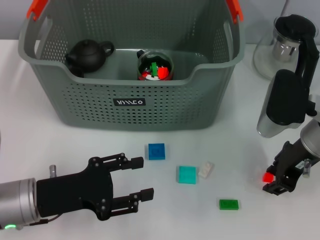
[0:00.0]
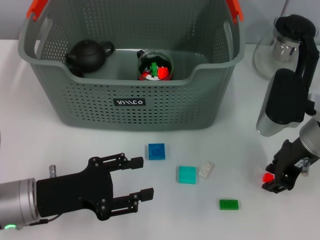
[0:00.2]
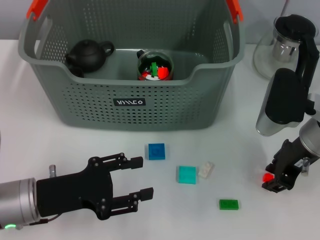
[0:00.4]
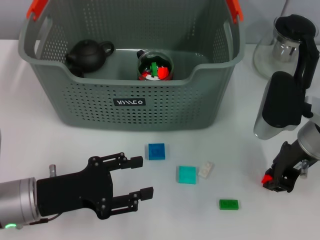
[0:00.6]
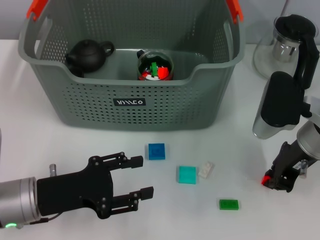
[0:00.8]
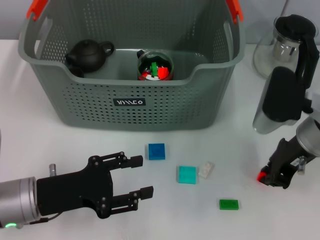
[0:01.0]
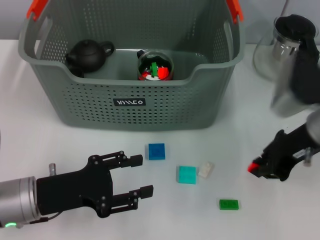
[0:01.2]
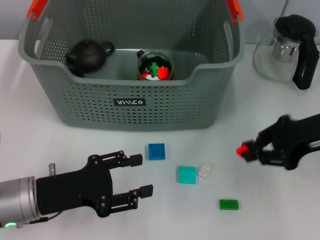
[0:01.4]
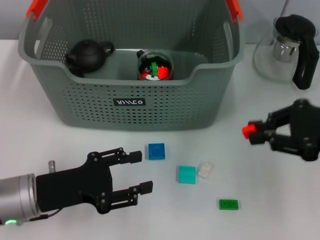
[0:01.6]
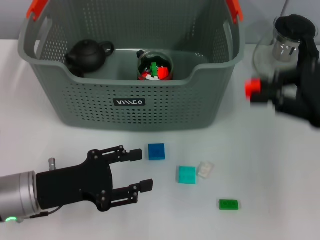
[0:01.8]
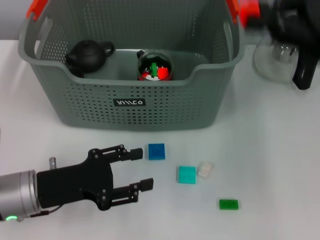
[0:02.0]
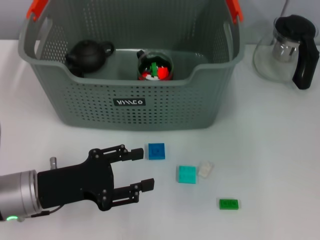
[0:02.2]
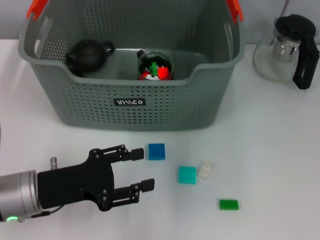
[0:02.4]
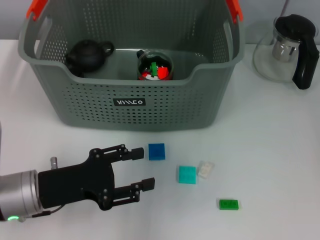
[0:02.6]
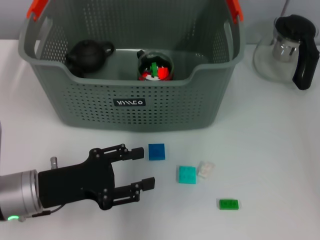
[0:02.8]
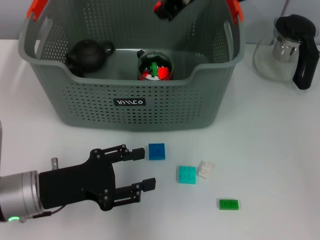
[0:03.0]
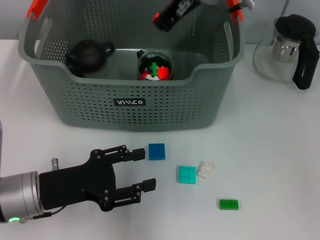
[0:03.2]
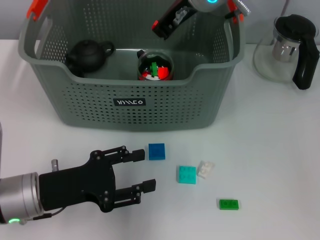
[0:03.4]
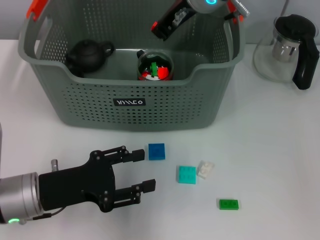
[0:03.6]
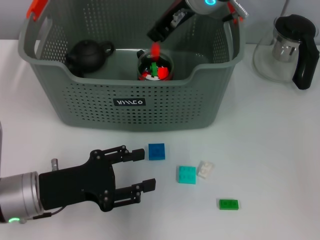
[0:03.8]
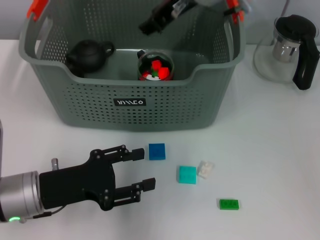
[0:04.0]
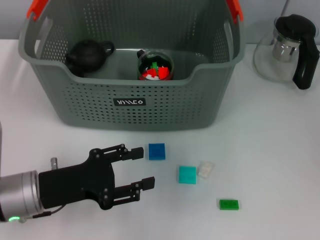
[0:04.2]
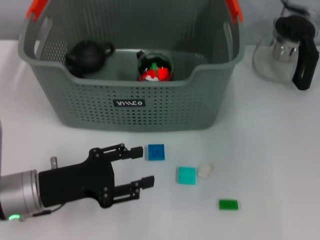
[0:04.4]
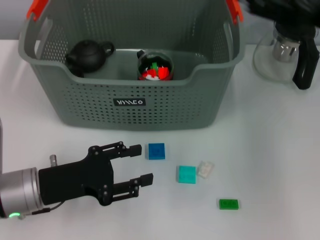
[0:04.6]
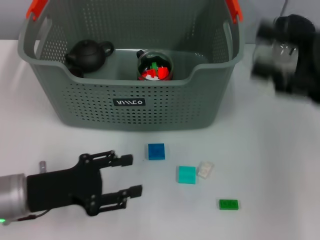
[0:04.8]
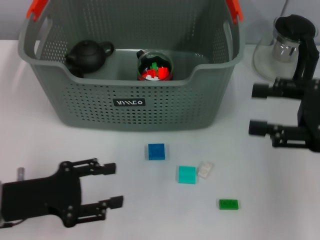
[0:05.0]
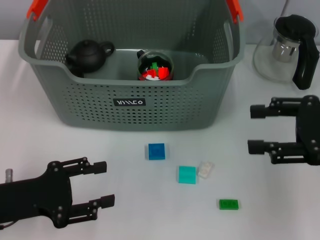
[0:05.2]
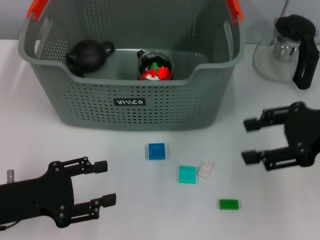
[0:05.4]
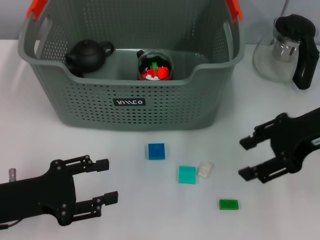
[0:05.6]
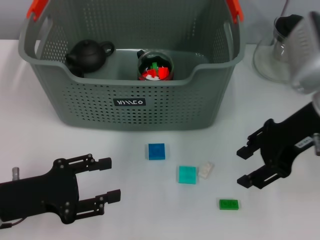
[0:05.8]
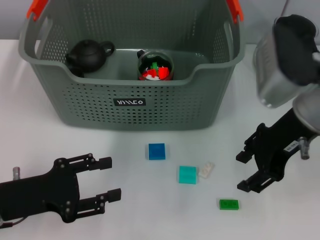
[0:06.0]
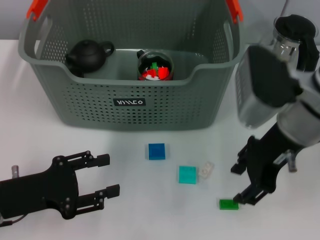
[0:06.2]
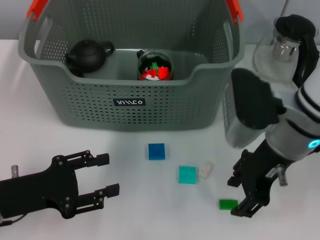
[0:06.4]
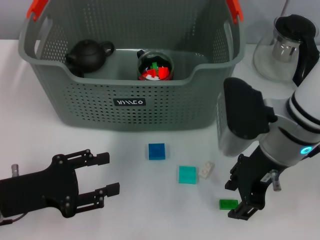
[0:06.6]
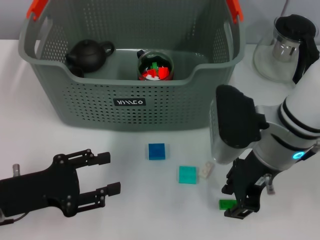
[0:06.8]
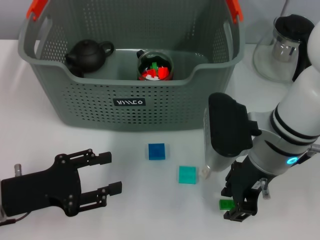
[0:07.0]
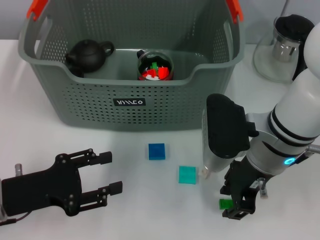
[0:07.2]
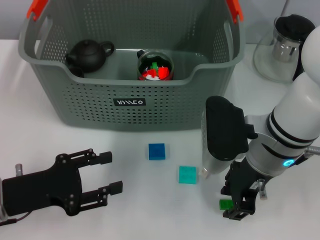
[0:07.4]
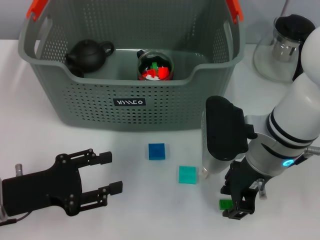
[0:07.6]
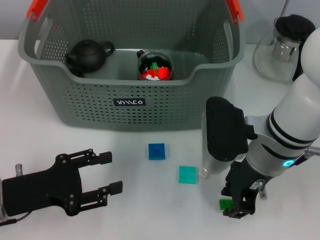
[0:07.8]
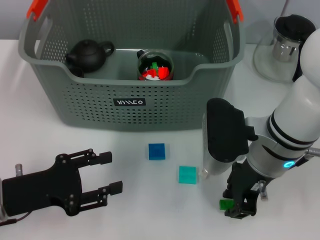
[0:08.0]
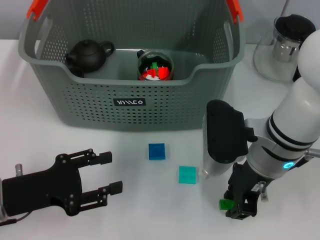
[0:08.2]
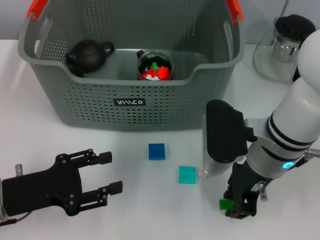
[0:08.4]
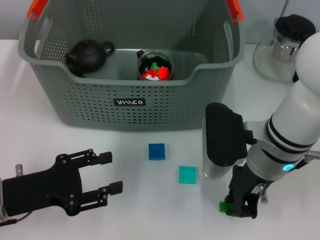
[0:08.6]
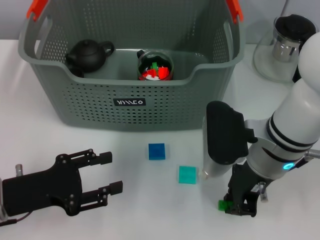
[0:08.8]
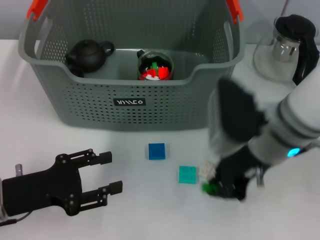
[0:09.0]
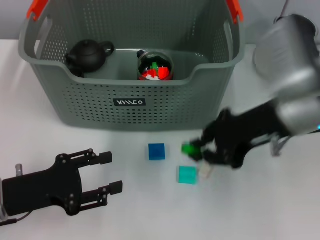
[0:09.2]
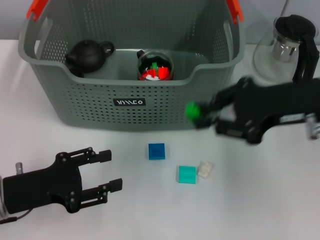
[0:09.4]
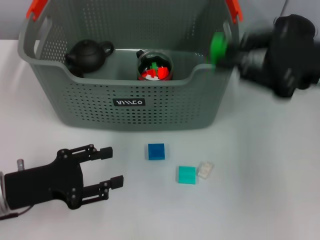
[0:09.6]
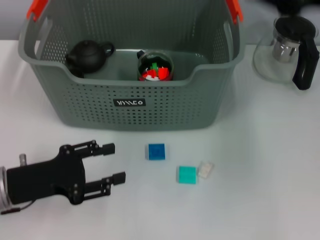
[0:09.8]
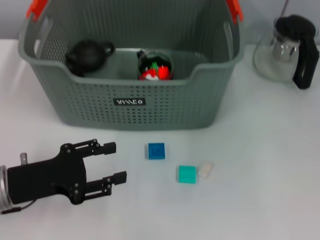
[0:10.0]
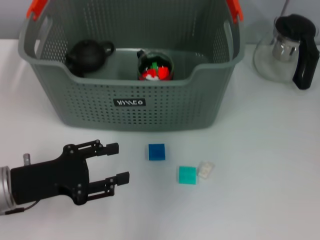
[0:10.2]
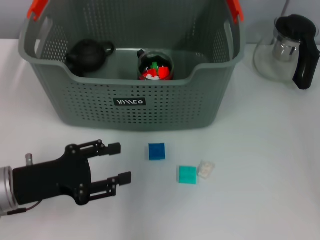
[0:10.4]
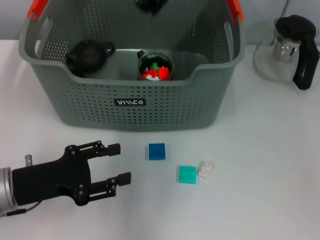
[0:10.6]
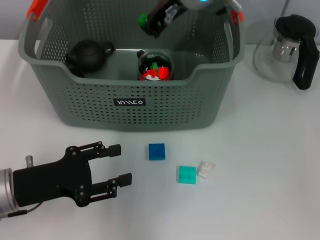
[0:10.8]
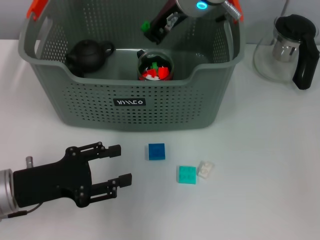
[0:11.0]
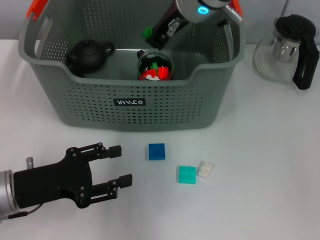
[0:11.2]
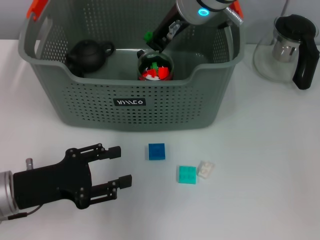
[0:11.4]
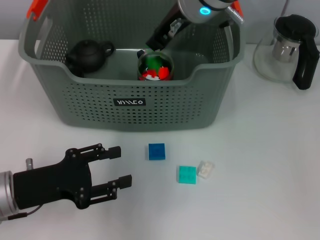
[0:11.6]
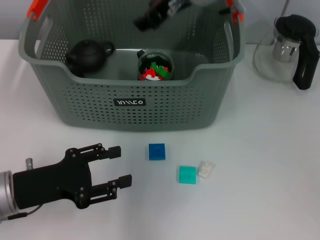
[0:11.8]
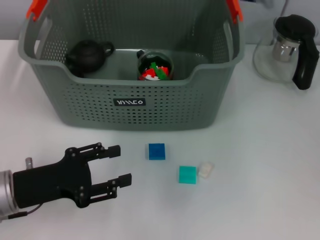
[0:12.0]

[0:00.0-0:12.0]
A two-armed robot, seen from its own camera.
Task of the whole recording: pick up the teacup on the table and place it into the storage bin, pick up the block on the table and place it into the storage bin.
Step, 0:01.0 to 0:04.2: Place the orange block in the storage box with right gripper.
Step, 0:04.4 to 0:08.6: Grasp the green block with right gripper.
Step, 0:08.8 to 0:11.8: Place the green block in the storage box with right gripper.
0:00.0 to 0:01.6: The right gripper moves to the right and upward, some 10 cm, and closes.
0:01.6 to 0:03.0: The right gripper goes roughly 30 cm to the left, forward and upward.
0:03.0 to 0:04.4: The right gripper shifts about 15 cm to the right and backward, and opens up.
0:04.4 to 0:06.0: The left gripper shifts by about 5 cm, while the right gripper shifts about 5 cm downward, and goes to the right and returns, approximately 10 cm each way.
0:06.0 to 0:07.6: The right gripper is displaced downward and to the left by some 10 cm.
0:07.6 to 0:09.0: The right gripper closes its fingers.
0:09.0 to 0:10.4: The right gripper moves upward and forward, some 20 cm.
0:10.4 to 0:12.0: The right gripper opens its fingers.

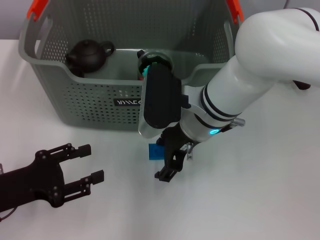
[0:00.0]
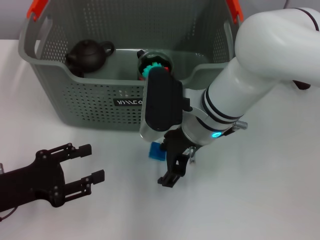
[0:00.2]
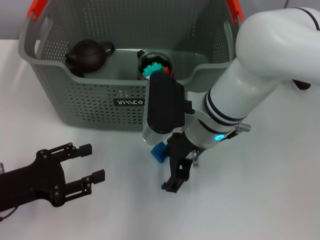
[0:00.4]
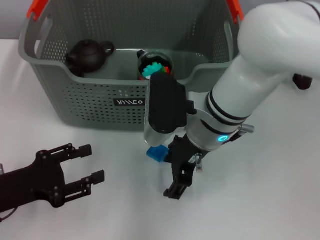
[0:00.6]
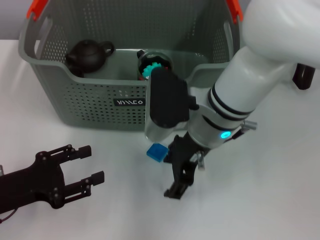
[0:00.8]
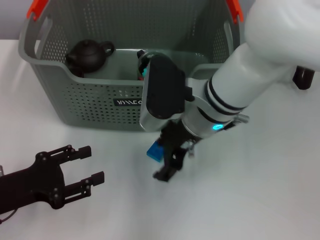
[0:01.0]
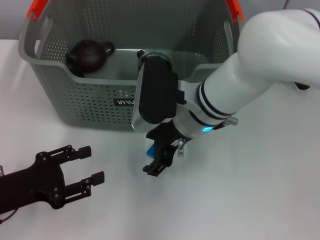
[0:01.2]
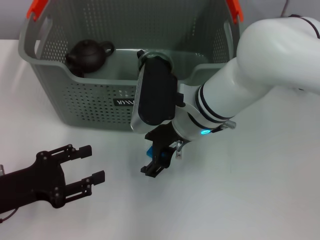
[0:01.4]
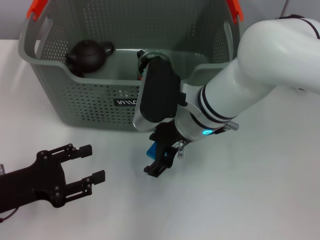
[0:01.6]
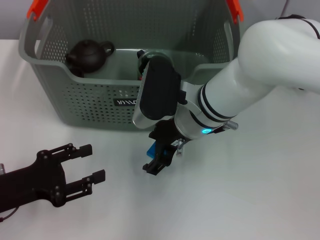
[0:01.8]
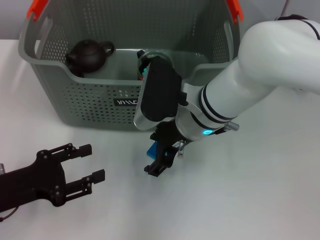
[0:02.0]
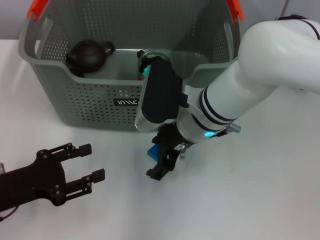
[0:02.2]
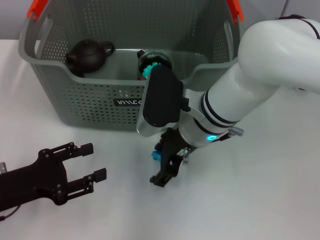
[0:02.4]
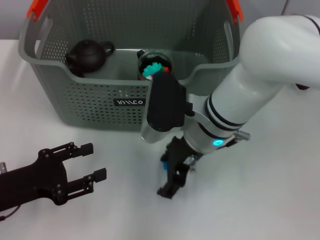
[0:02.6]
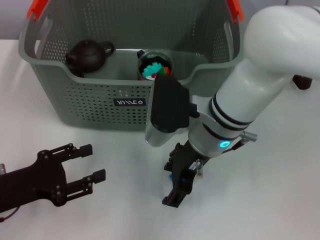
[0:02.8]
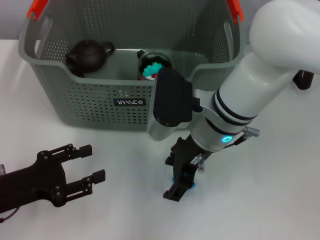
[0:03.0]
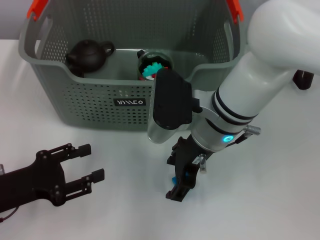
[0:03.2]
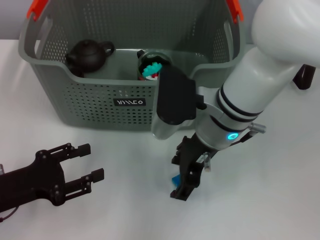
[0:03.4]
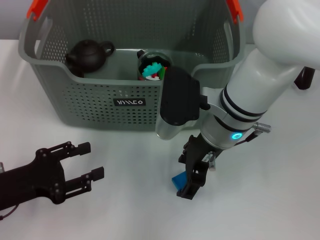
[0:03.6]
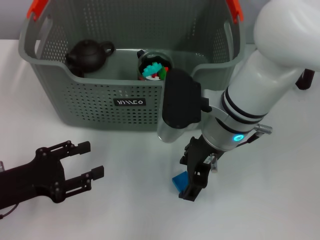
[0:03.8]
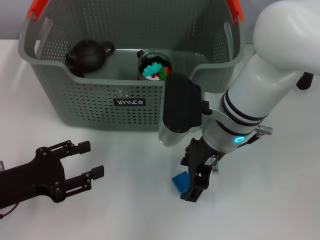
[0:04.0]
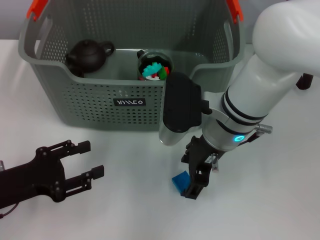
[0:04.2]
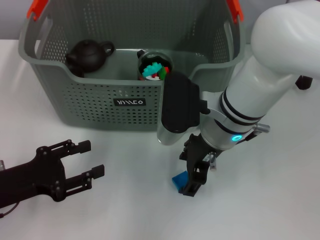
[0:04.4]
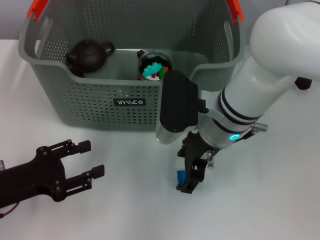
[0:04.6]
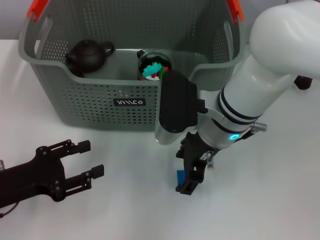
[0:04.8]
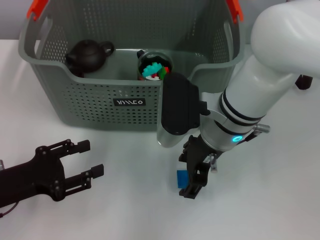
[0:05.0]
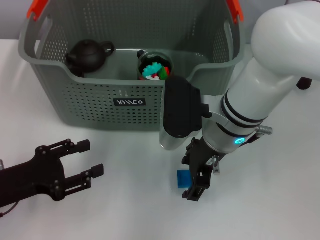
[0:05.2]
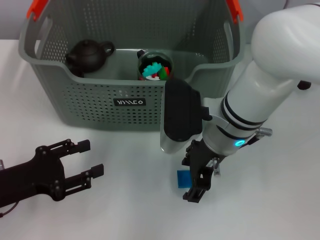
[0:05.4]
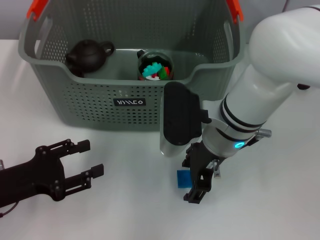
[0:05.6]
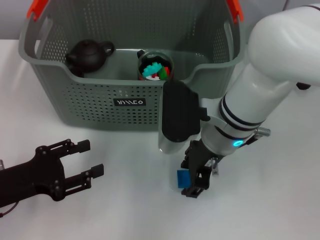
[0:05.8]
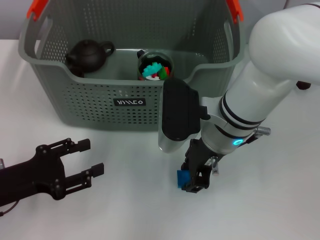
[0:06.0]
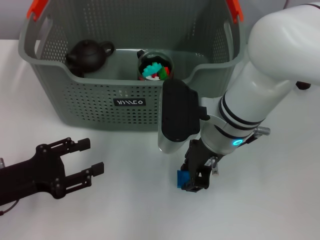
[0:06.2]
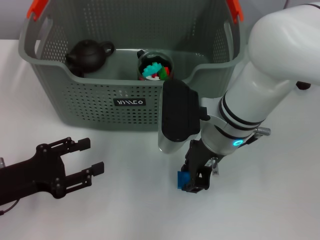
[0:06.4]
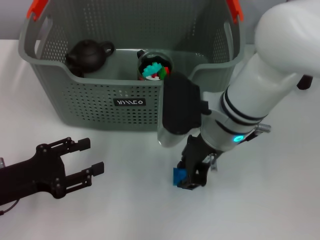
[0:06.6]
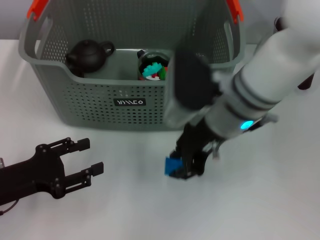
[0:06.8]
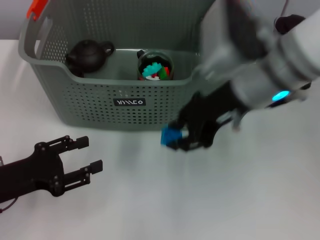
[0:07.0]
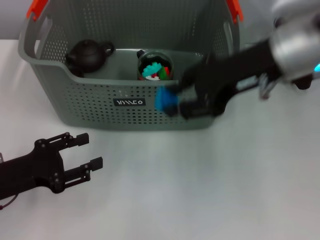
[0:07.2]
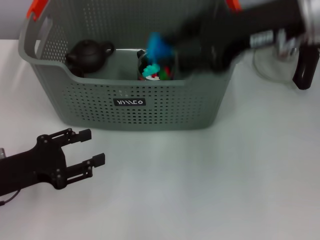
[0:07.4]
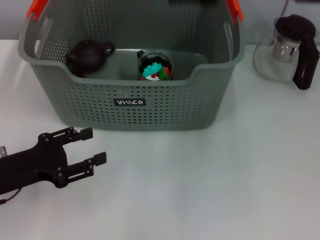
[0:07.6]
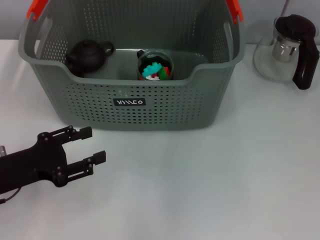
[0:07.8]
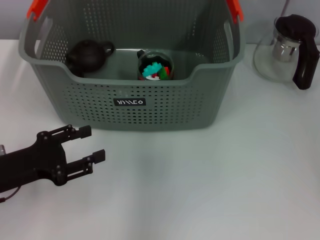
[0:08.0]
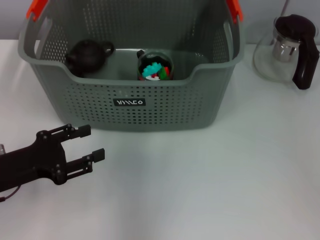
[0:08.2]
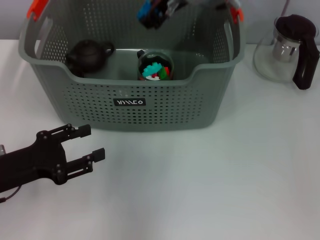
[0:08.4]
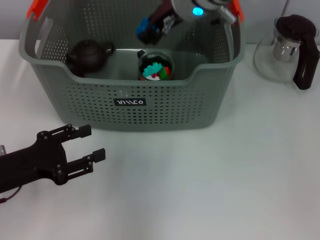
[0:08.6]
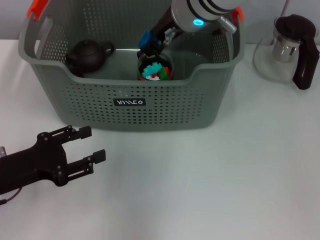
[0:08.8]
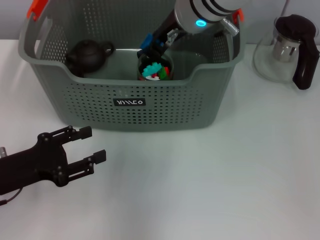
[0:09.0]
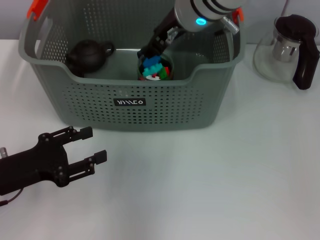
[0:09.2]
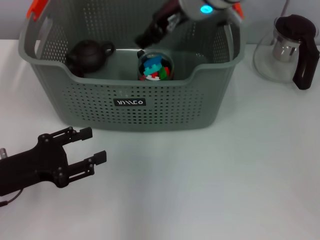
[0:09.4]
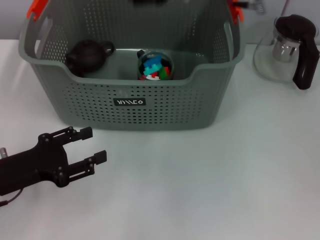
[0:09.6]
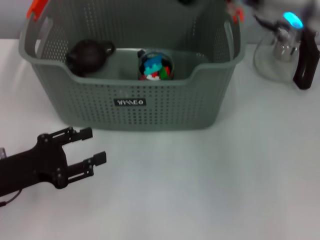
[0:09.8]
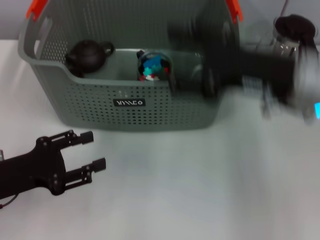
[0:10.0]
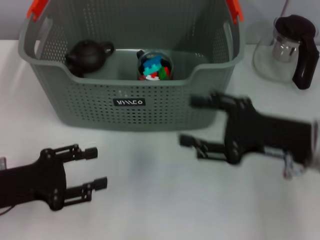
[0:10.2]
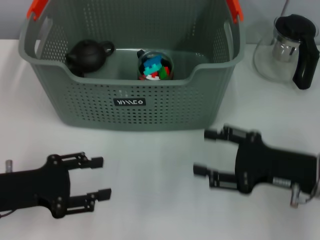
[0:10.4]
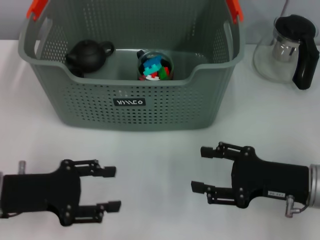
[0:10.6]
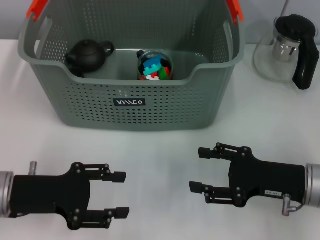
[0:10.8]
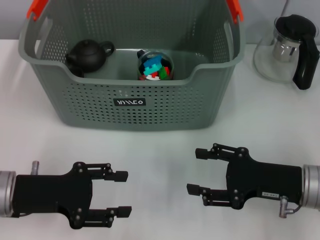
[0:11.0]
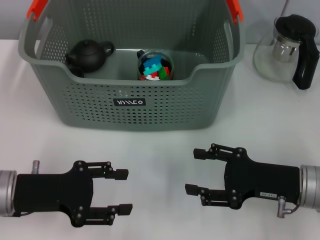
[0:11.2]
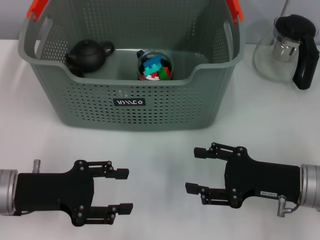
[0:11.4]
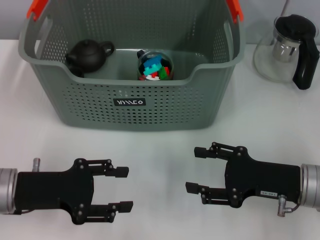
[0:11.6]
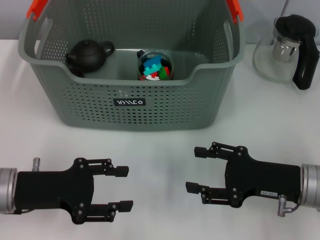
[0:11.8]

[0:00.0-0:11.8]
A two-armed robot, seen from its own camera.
Task of the whole recording: pick up the teacup on the table and place it into the storage bin, pick up the block on the table and place it into the storage bin.
Step, 0:00.0 to 0:06.4: Grasp the dark blue block with right gripper.
Step, 0:06.6 to 0:09.6: Place the dark blue block in the storage box with right gripper.
0:00.0 to 0:04.4: The grippers make only small movements.
0:04.4 to 0:06.0: Both grippers stay put.
0:06.0 to 0:07.4: The right gripper moves upward and to the right, approximately 20 cm.
0:07.4 to 0:08.8: The right gripper moves to the left, forward and downward, some 15 cm.
0:08.8 to 0:10.4: The right gripper heads to the right, backward and downward, covering about 30 cm, and opens up.
0:10.4 to 0:11.8: There are only small adjustments of the grippers.
